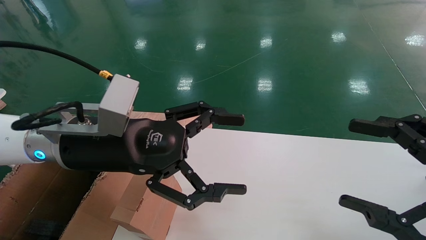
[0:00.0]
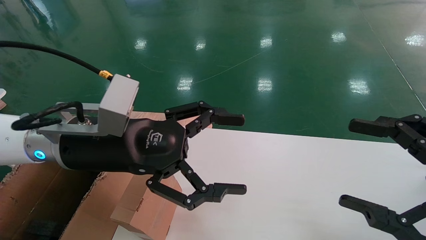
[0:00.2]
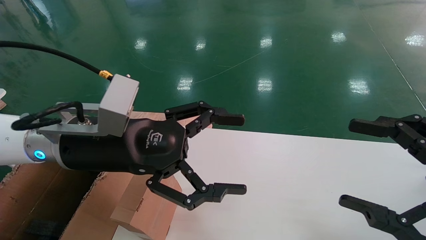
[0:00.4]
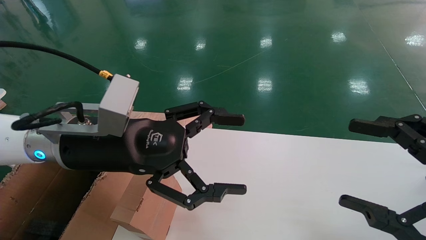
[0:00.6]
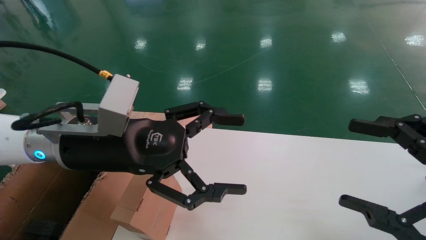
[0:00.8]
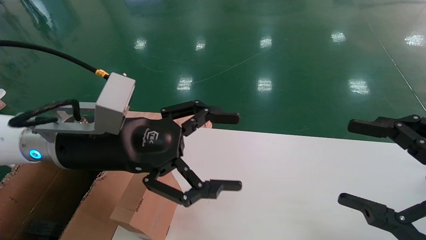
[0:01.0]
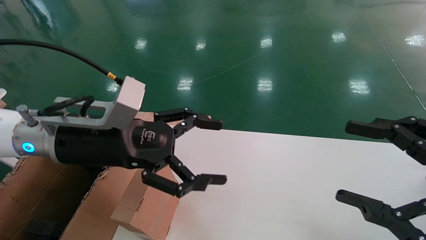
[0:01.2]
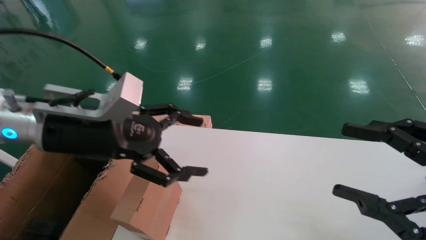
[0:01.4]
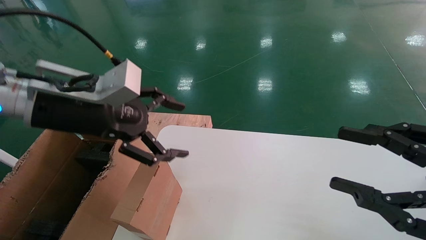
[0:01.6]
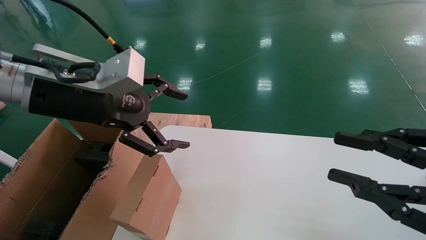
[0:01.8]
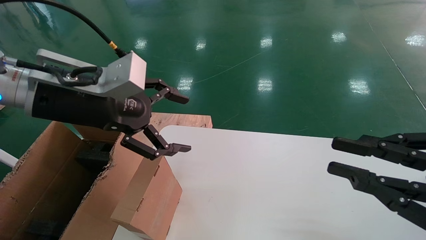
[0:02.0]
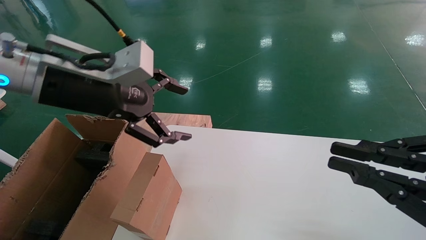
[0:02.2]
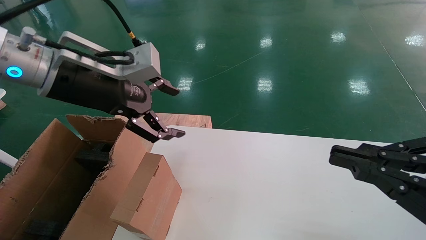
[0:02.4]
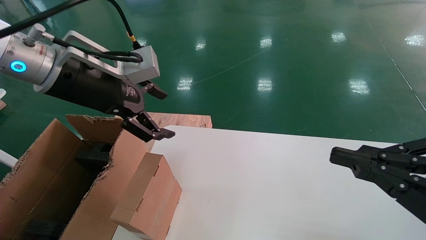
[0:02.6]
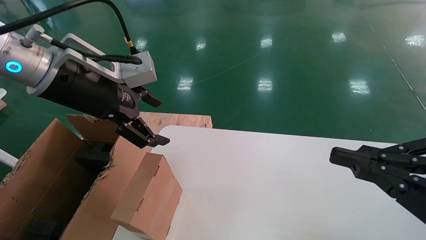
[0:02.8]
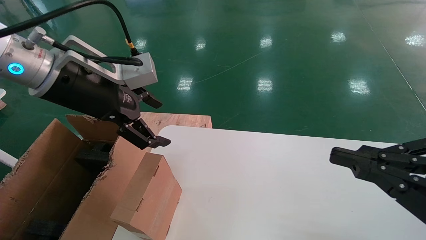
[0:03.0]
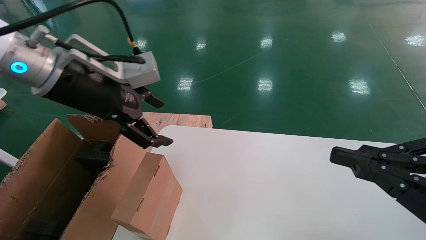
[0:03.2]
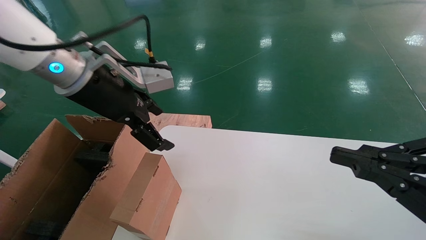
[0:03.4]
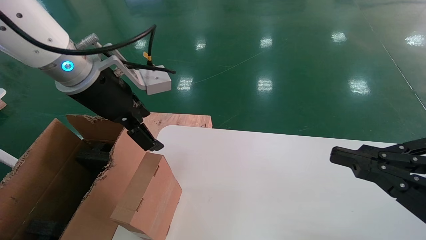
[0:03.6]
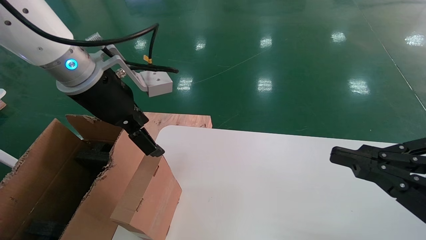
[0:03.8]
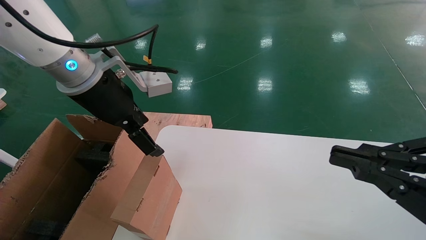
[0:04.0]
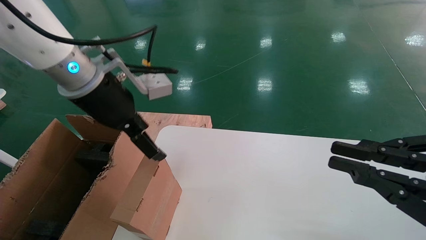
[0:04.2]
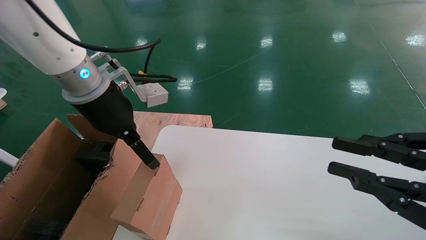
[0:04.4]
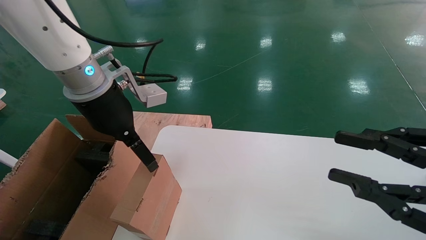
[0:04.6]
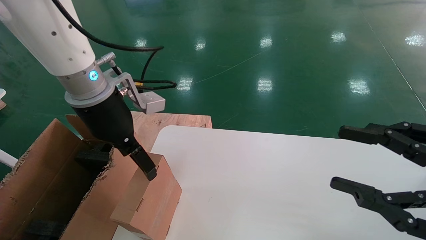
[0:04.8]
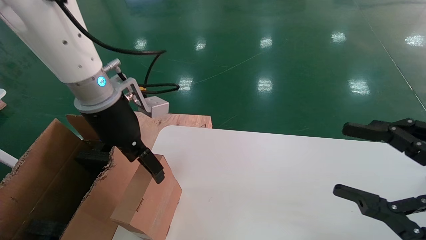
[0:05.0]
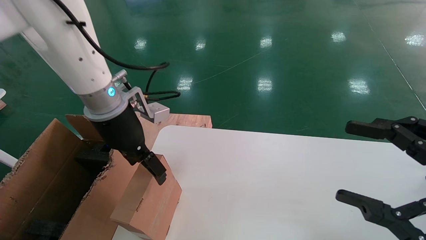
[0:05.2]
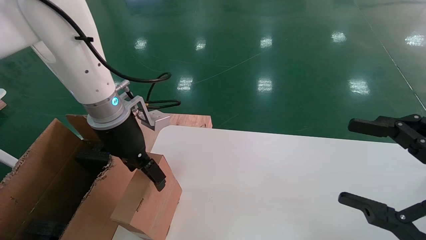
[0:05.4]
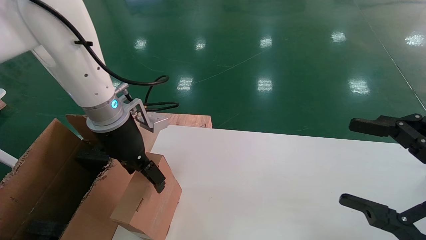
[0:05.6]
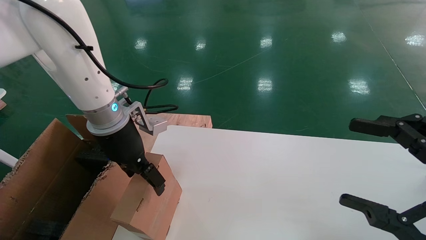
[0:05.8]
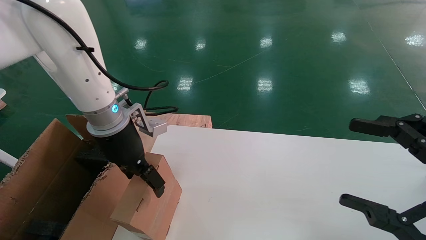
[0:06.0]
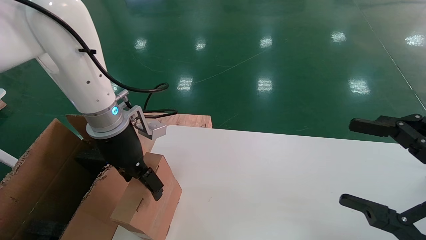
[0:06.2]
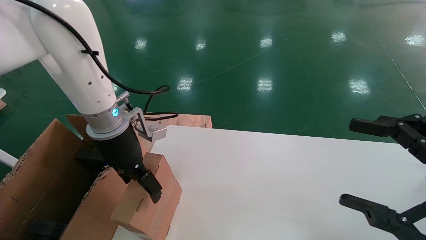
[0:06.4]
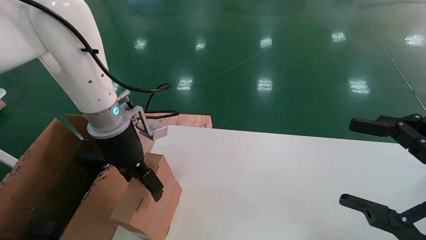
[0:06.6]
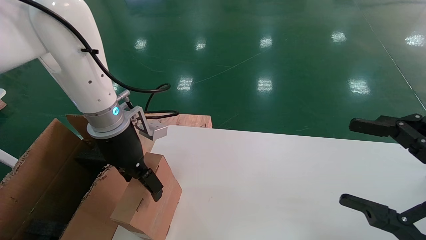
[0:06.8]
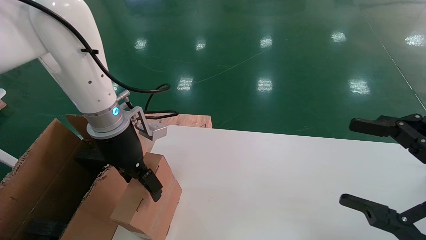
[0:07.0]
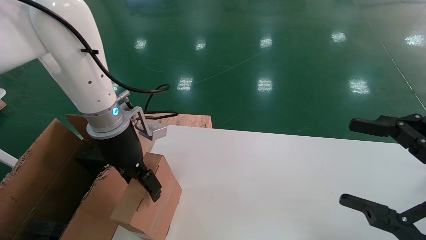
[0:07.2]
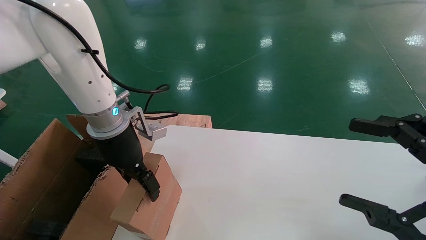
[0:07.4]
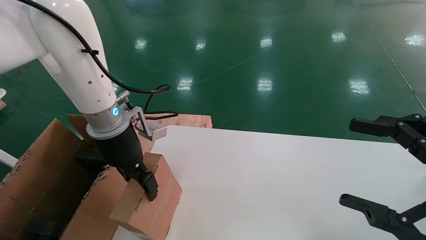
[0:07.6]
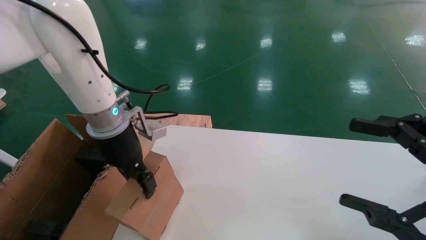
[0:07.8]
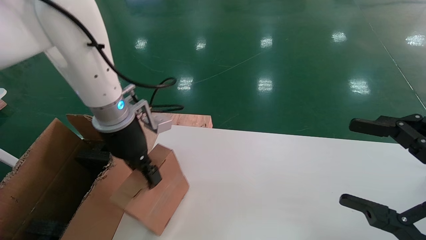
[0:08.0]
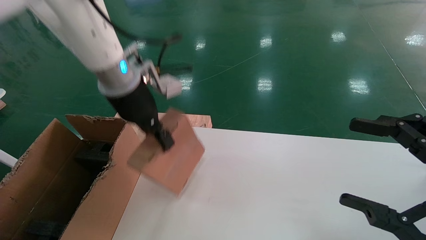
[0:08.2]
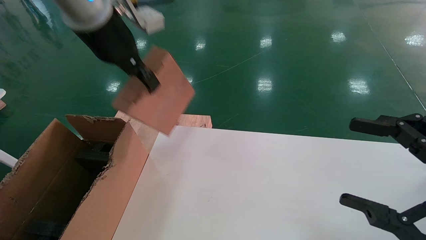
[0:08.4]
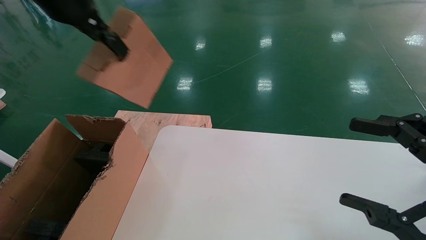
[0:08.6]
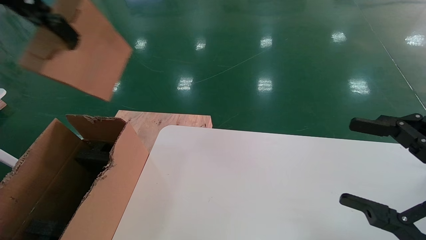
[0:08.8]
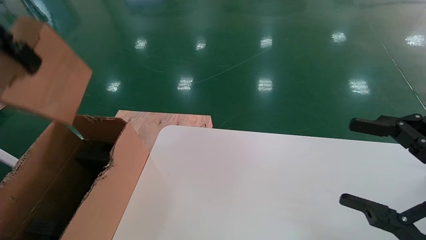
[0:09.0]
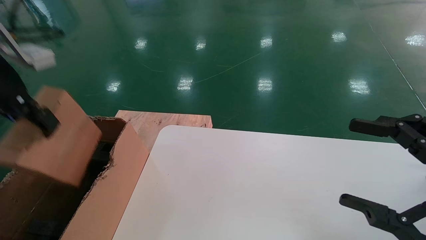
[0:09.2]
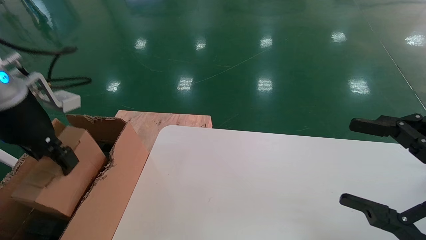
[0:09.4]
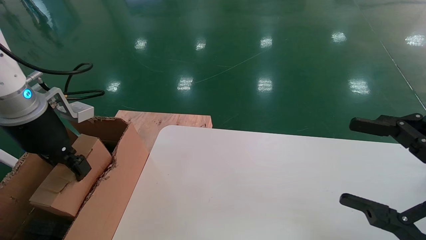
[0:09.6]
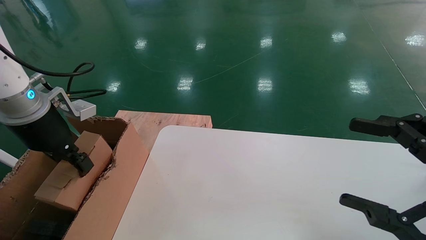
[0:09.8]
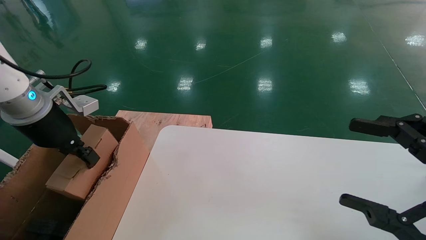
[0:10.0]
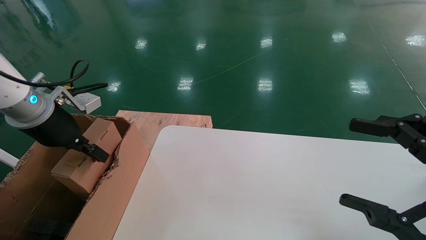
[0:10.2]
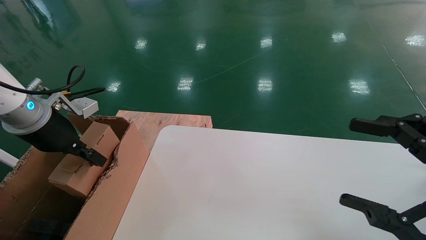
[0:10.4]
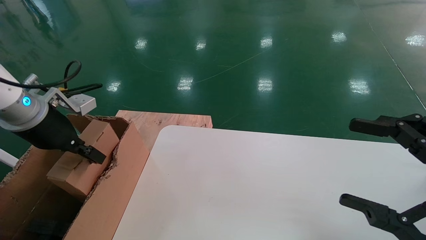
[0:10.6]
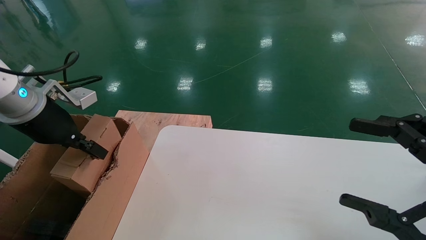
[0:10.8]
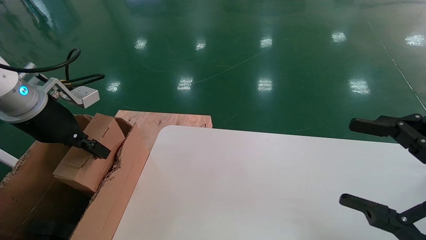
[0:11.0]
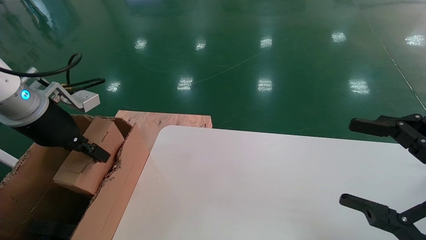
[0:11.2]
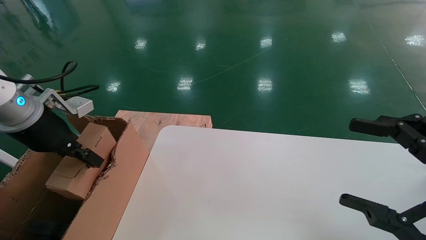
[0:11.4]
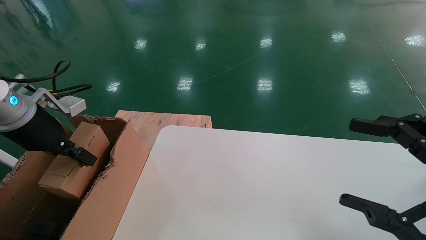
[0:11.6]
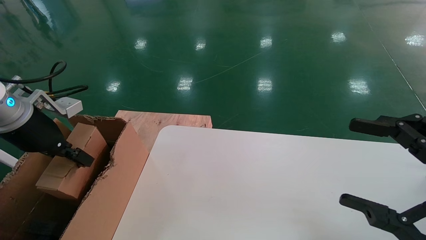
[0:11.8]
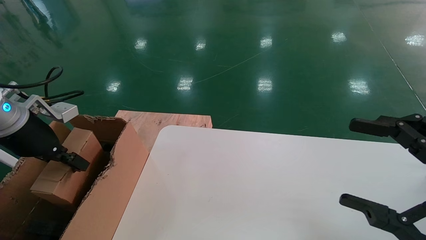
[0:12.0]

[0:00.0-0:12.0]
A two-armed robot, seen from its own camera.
Task of the whole recording: place the small box on the table into the large box on the left.
Step, 0:01.4 to 0:08.0: Pick up the mouse and the power cord paper box.
0:00.0 to 0:01.6: The left gripper travels upward by approximately 5 cm.
0:01.6 to 0:03.0: The right gripper closes its fingers.
0:03.0 to 0:04.4: The left gripper ends up about 5 cm from where it was.
0:04.4 to 0:06.0: The left gripper moves downward, about 5 cm, while the right gripper opens its fingers.
0:06.0 to 0:07.6: The left gripper closes up.
0:07.6 to 0:09.0: The left gripper heads upward, to the left and backward, covering roughly 25 cm, and closes up.
0:09.0 to 0:10.4: The left gripper travels downward by about 20 cm.
0:10.4 to 0:12.0: The left gripper ends up roughly 5 cm from where it was.

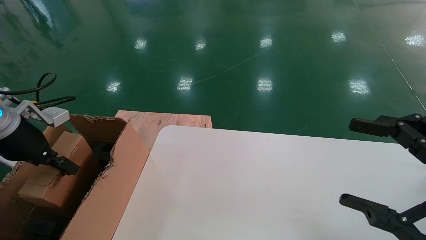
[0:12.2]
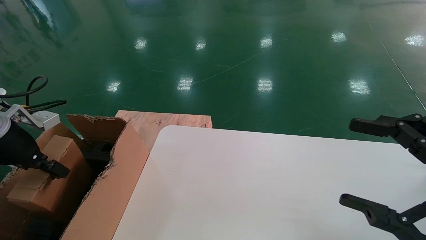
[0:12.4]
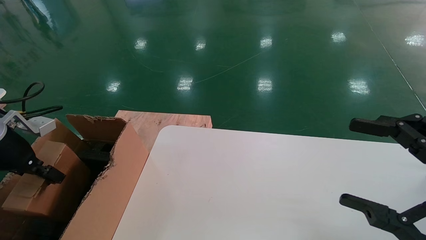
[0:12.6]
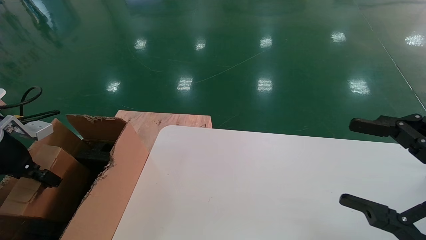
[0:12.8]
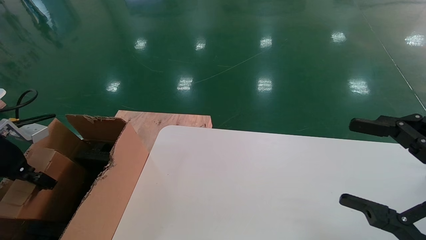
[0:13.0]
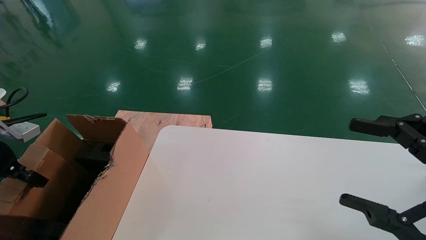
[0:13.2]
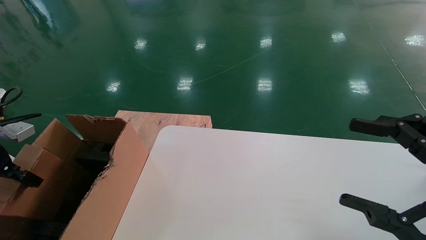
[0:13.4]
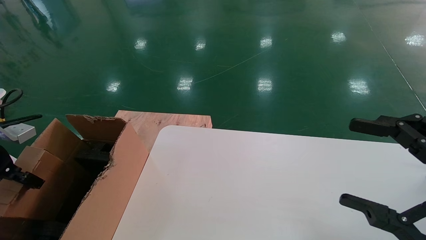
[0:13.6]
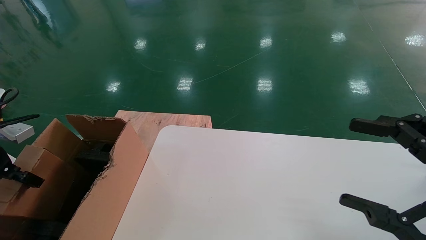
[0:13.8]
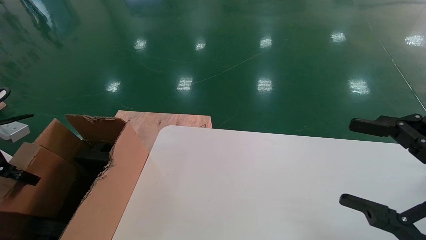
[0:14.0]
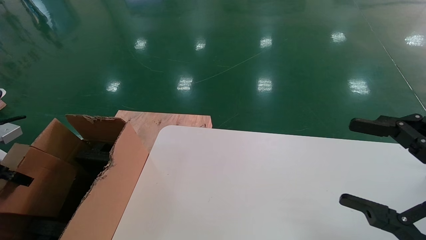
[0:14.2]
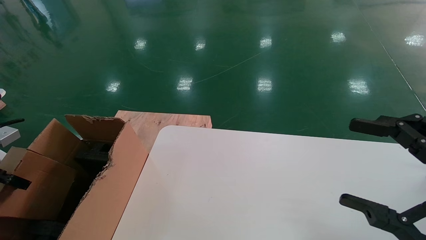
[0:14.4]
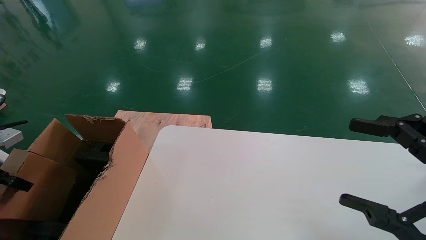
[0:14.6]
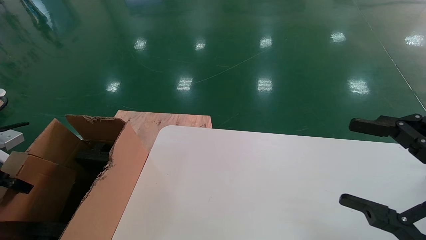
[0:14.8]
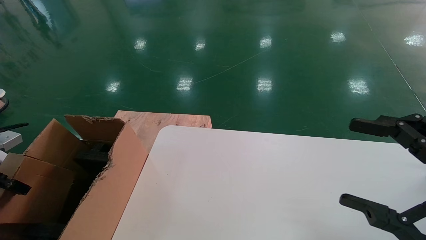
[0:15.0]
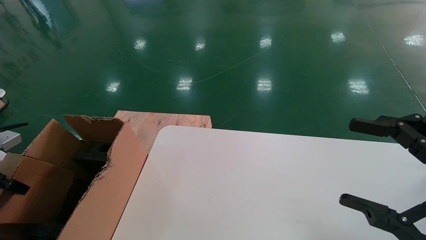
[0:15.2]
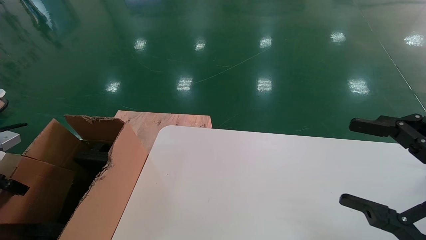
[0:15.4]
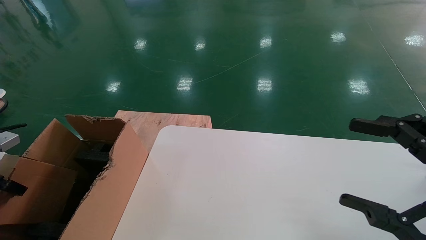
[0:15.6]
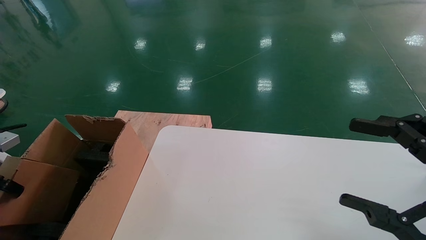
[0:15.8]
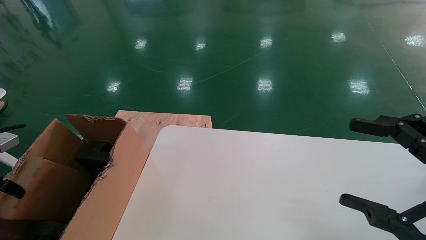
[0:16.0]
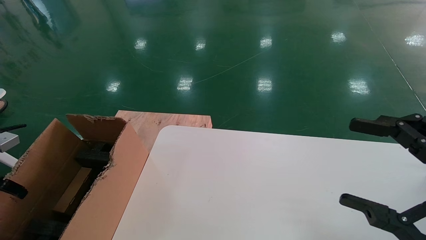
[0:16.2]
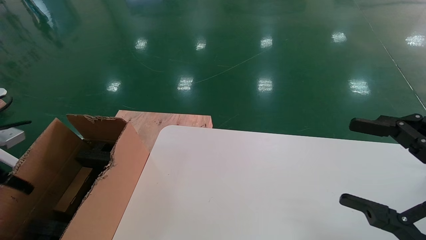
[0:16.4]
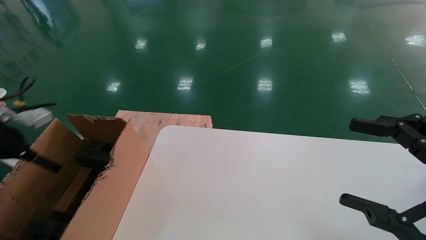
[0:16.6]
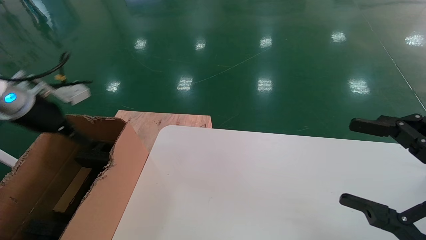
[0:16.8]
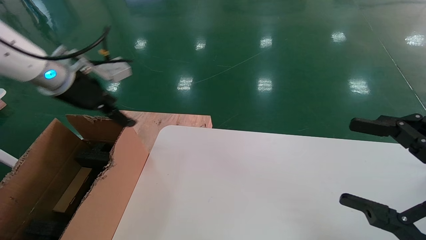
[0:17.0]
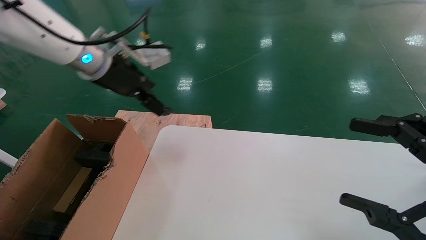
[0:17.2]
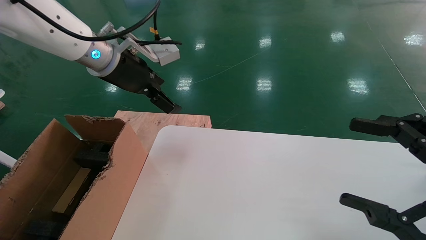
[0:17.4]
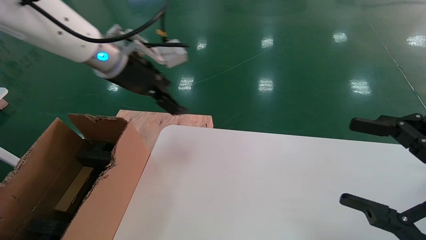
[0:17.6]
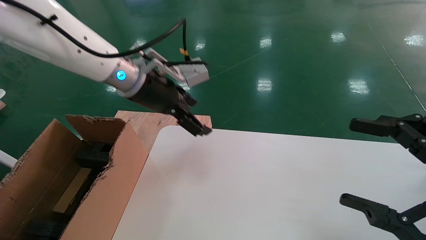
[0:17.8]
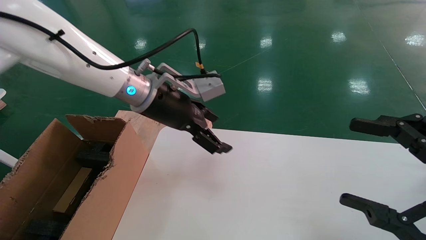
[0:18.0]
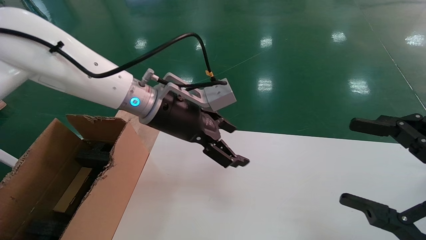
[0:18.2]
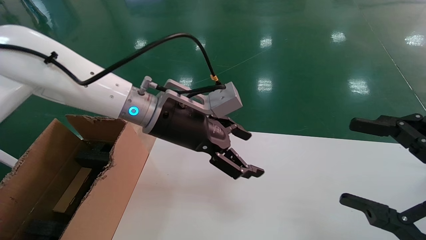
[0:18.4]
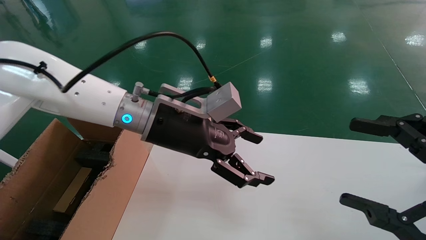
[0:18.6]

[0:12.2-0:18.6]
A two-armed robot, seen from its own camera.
Task of the whole recording: place the small box on the table into the large box on the left.
Step, 0:12.2 to 0:16.2: Place the mouse and the power cord paper box into the container.
0:12.2 to 0:13.8: The left gripper travels to the left by approximately 10 cm.
0:13.8 to 0:15.4: There are only small adjustments of the grippers.
0:15.4 to 0:17.0: The left gripper travels to the right, upward and forward by roughly 25 cm, and opens up.
0:17.0 to 0:18.6: The left gripper travels to the right by approximately 20 cm.
